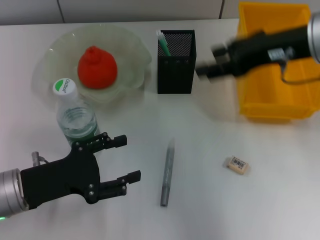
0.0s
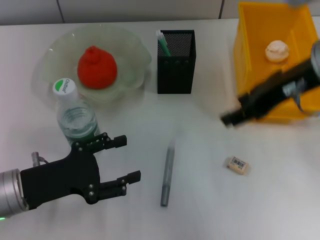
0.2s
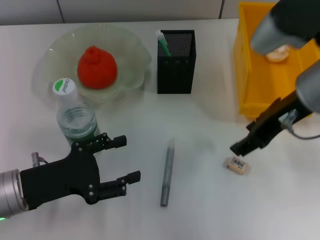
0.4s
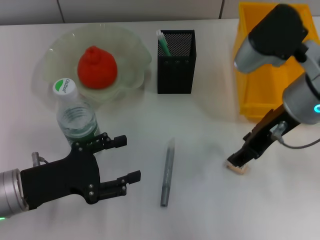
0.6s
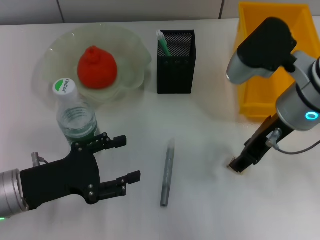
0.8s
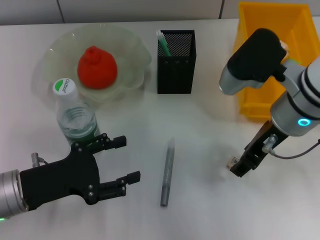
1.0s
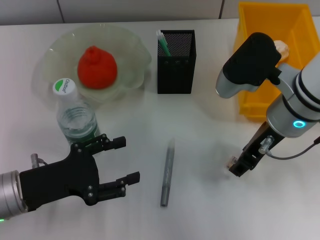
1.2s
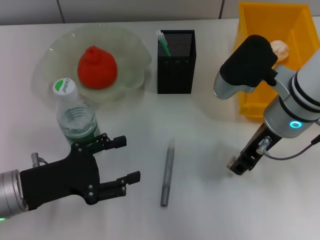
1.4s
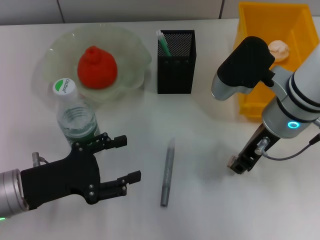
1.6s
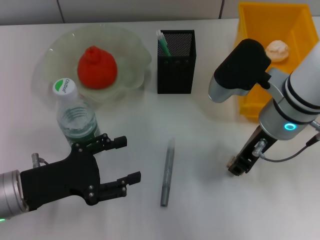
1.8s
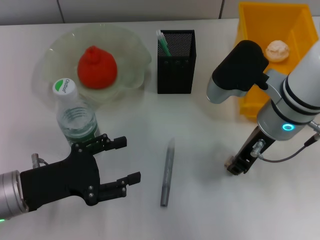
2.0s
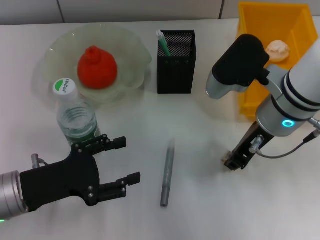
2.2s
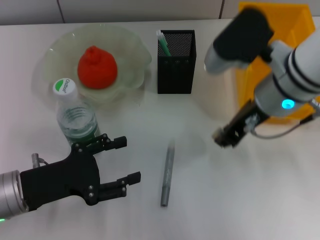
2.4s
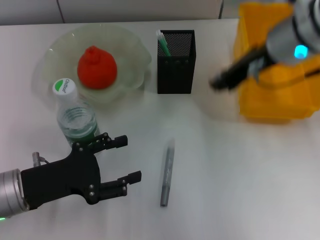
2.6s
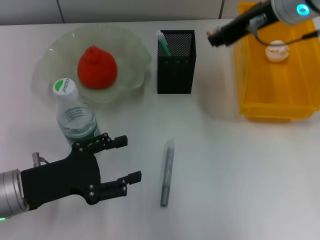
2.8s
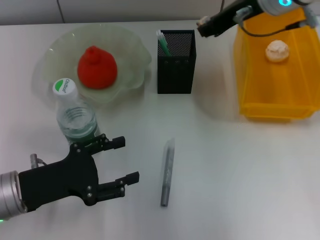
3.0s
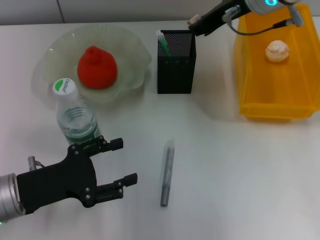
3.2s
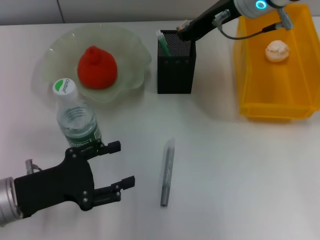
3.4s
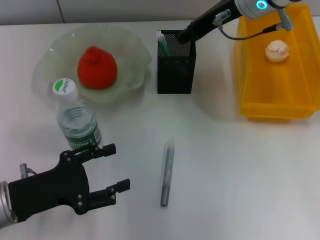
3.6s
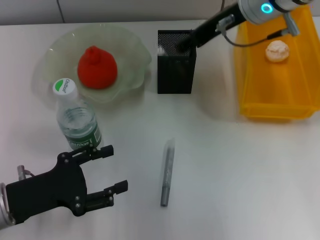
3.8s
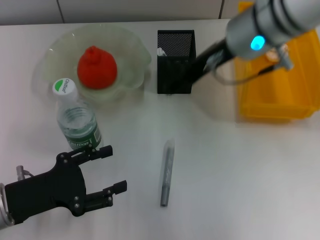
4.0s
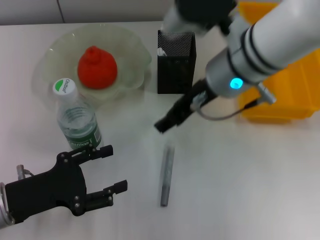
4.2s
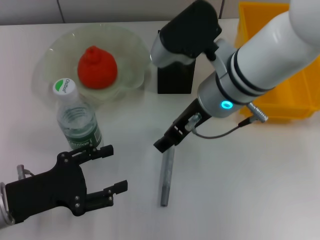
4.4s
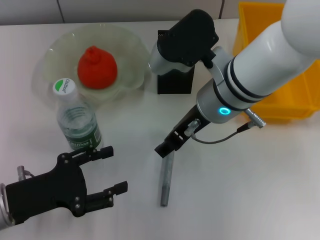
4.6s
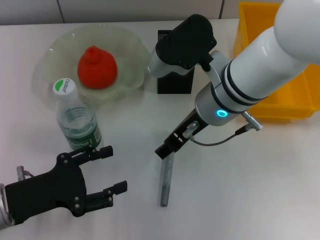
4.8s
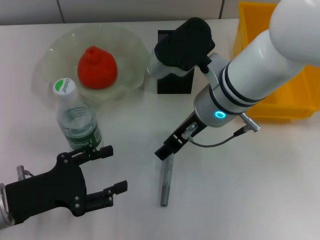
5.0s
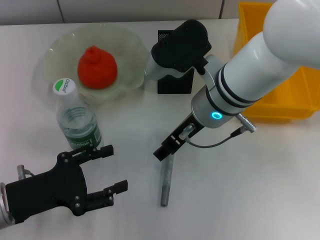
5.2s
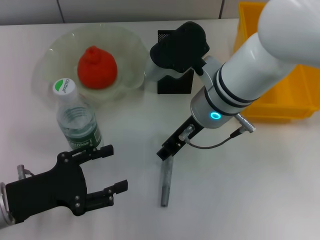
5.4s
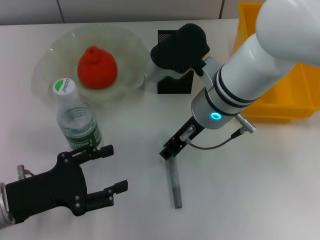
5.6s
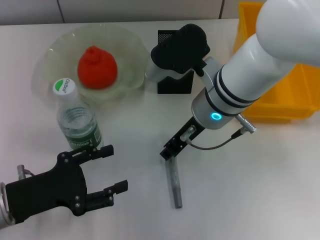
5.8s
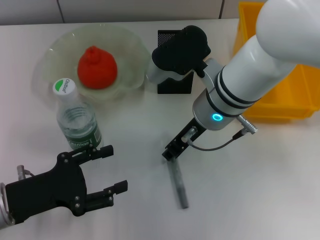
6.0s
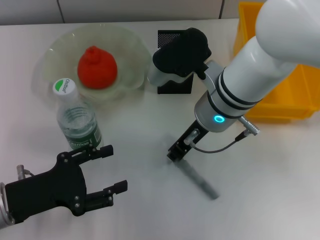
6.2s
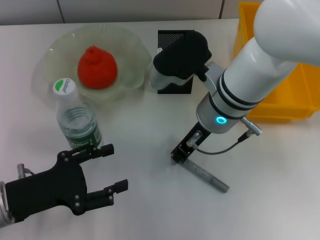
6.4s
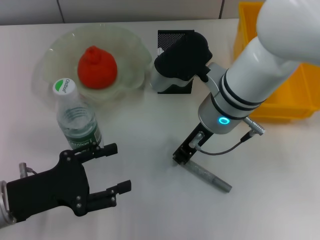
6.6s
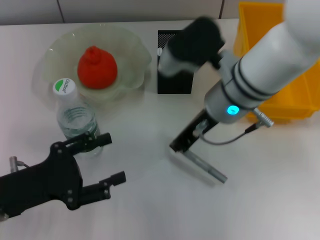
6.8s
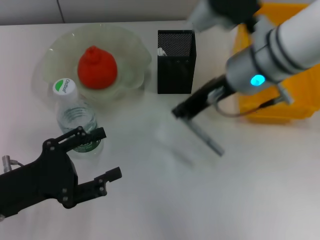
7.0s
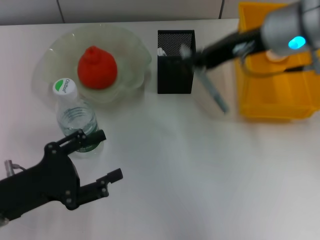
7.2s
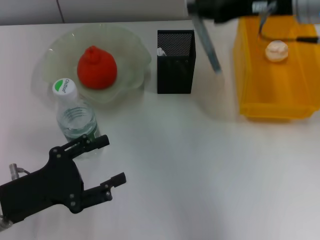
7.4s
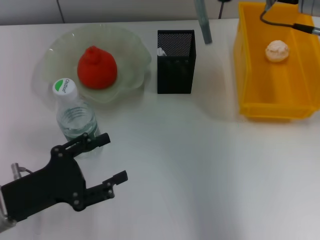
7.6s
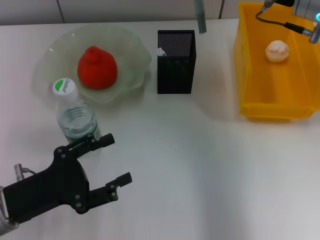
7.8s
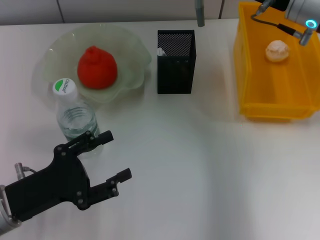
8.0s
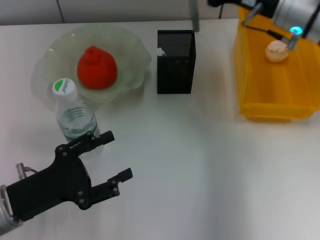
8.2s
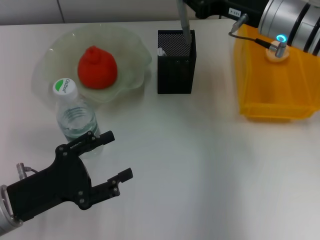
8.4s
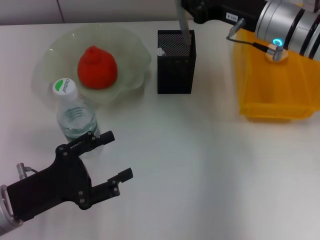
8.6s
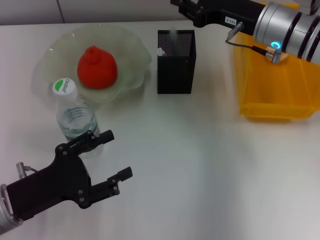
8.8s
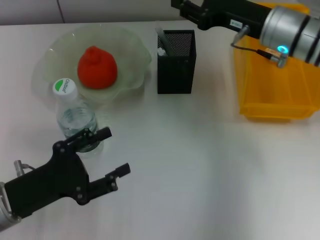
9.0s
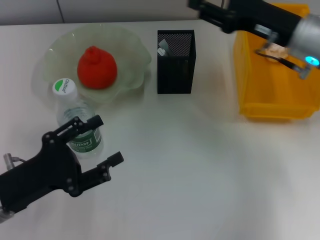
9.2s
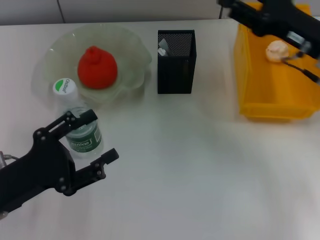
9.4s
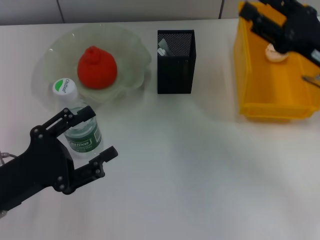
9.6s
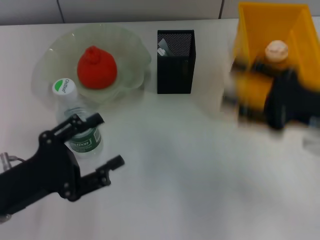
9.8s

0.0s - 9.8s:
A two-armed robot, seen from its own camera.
Step, 0.0s - 1.6s: Grab the eraser with the right hand.
Step, 2.0s - 3.6s: Put the eraser into the pen holder with the right hand.
Step, 4.0s - 6.2s: Grab the gray glue with the right hand.
Step, 6.6s - 9.2s: Place the gray glue into the pen holder with the right hand.
0.0s - 1.4s: The right gripper travels downward by roughly 10 cm.
1.4s - 2.8s: The right gripper is displaced upward and forward by some 10 cm, and closes.
2.8s - 4.2s: The right gripper shifts some 10 cm to the left and downward, and opens.
4.2s - 5.6s: The right gripper travels downward by approximately 5 cm, and closes.
5.6s - 7.0s: The right gripper travels upward by some 5 cm, and closes its fingers.
7.0s - 8.4s: The right gripper goes approximately 10 cm to the right and forward, and goes upward and returns, about 5 cm each way.
8.4s - 9.8s: The right gripper heads backward and to the right, covering roughly 15 cm, and opens up.

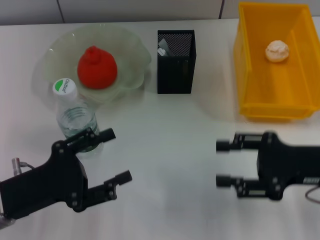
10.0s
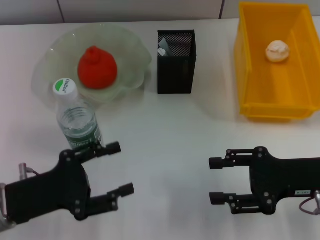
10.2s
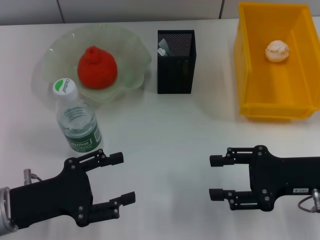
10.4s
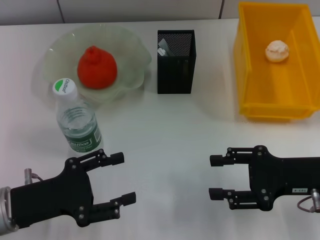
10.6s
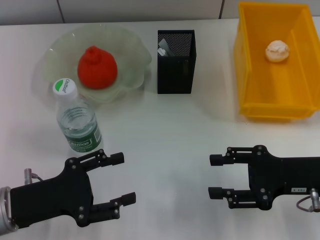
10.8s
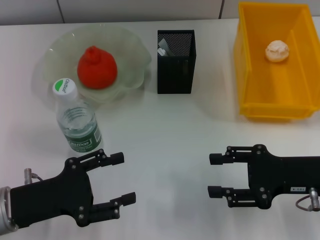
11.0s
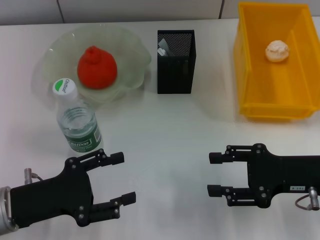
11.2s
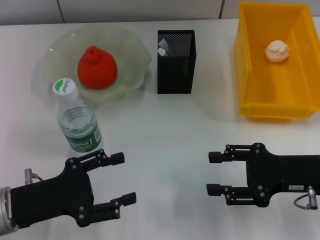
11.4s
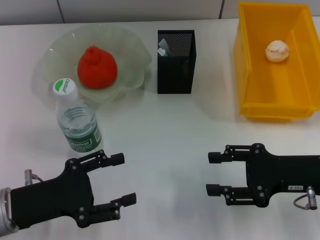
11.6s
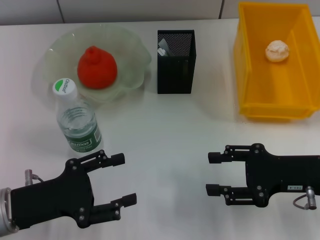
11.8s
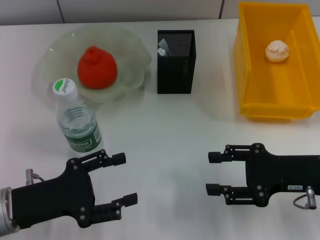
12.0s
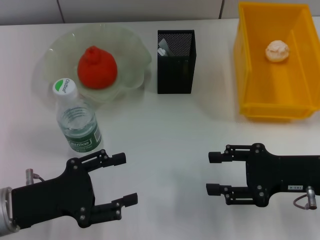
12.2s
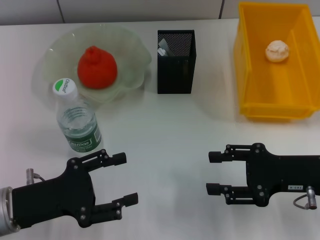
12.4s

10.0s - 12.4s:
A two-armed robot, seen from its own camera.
10.0s - 11.2s: The grippers make only small movements.
11.2s - 12.4s: Neither gripper changes place.

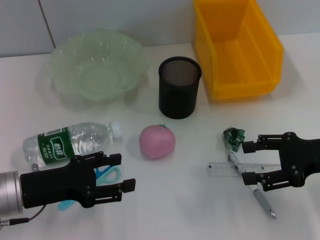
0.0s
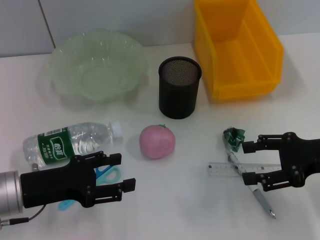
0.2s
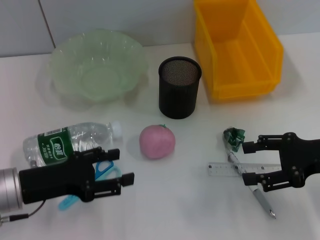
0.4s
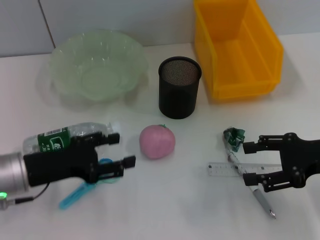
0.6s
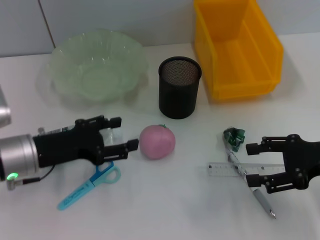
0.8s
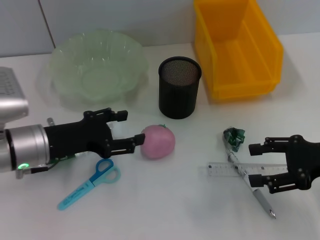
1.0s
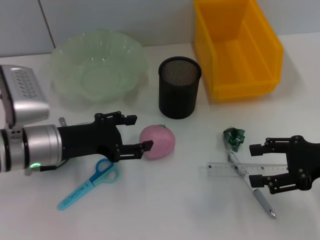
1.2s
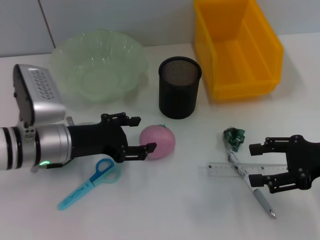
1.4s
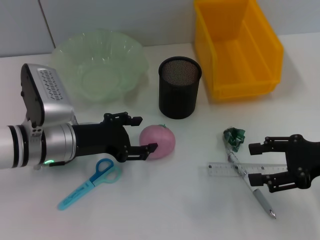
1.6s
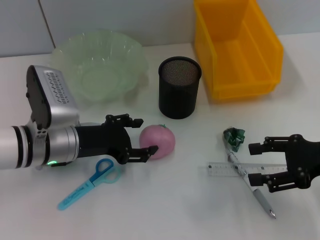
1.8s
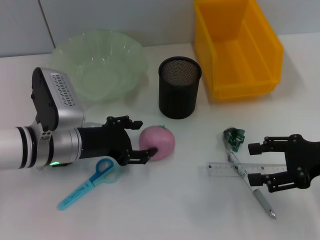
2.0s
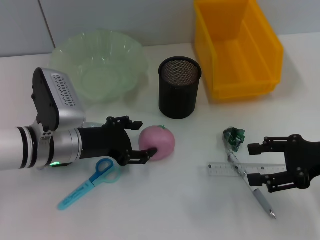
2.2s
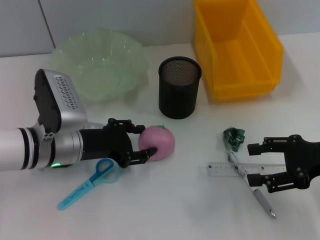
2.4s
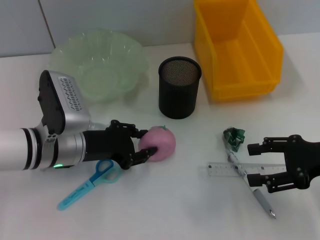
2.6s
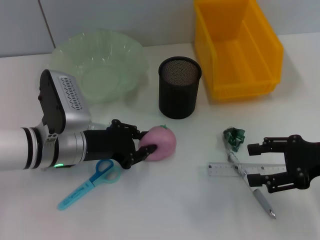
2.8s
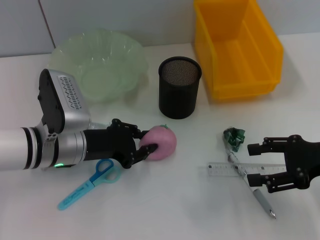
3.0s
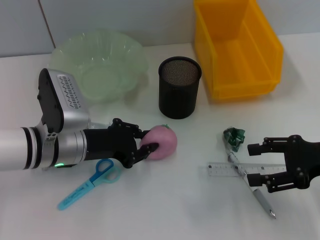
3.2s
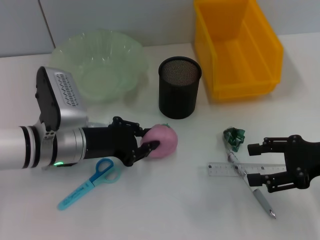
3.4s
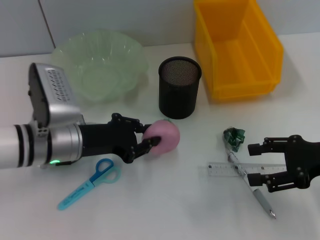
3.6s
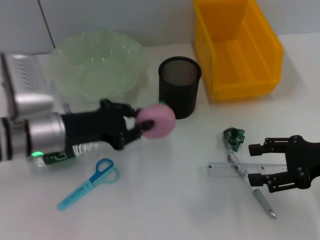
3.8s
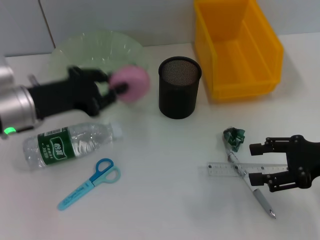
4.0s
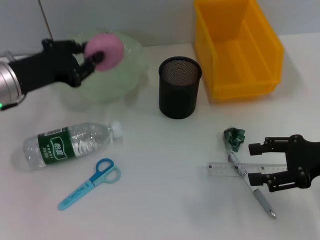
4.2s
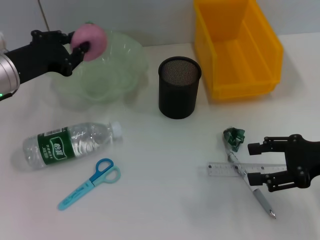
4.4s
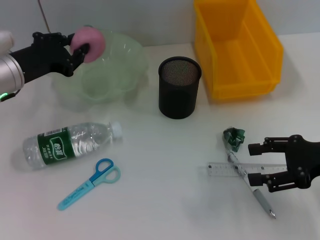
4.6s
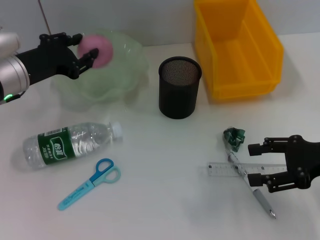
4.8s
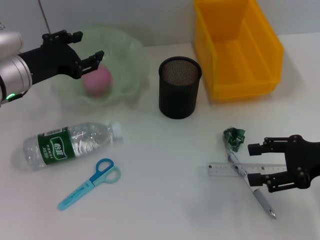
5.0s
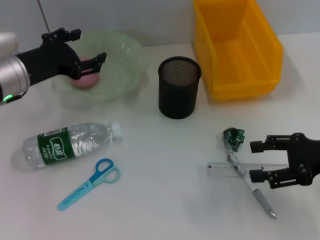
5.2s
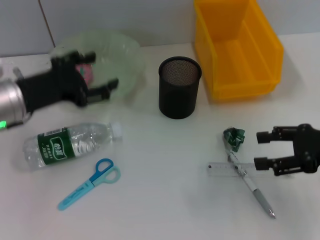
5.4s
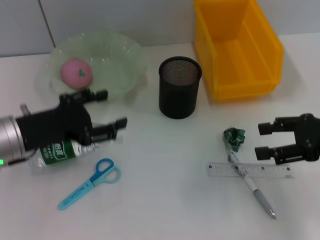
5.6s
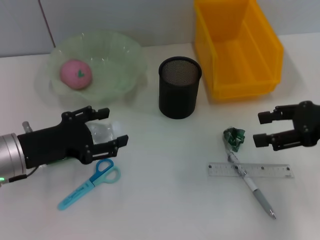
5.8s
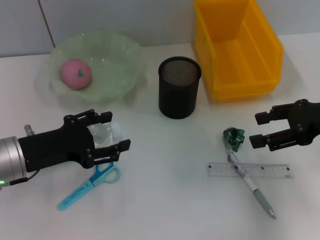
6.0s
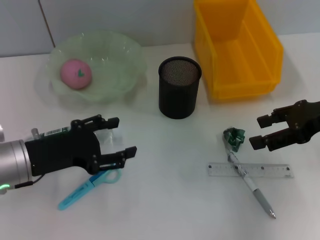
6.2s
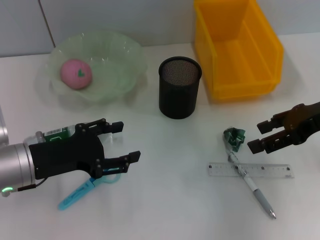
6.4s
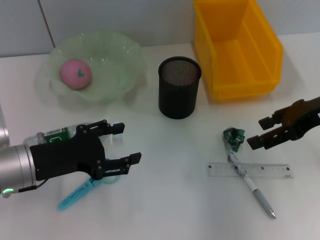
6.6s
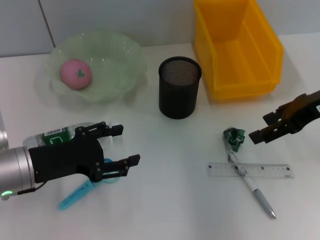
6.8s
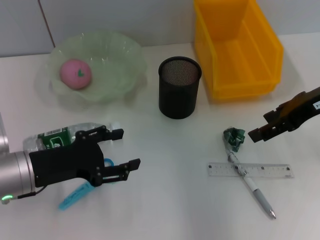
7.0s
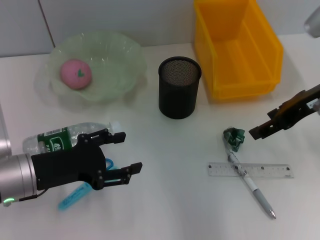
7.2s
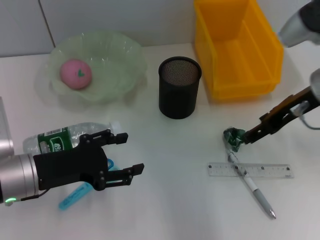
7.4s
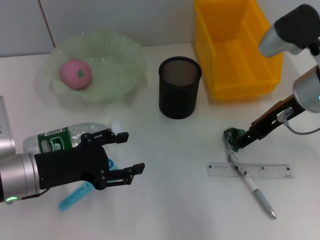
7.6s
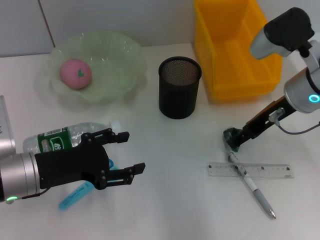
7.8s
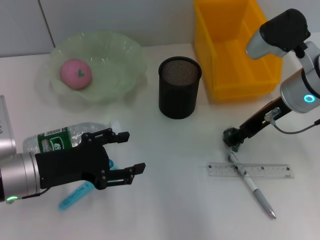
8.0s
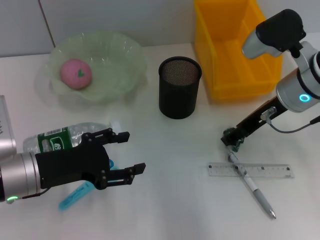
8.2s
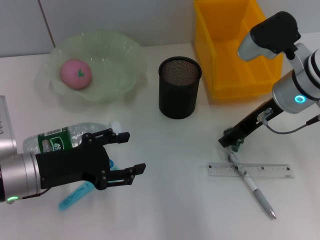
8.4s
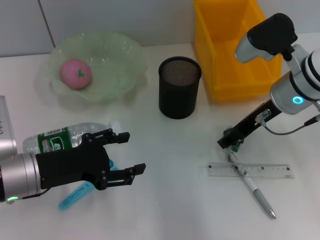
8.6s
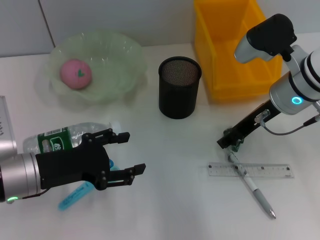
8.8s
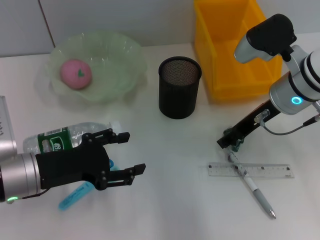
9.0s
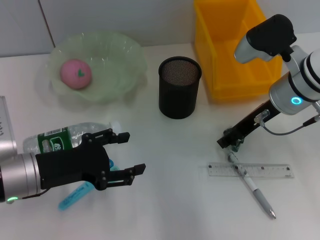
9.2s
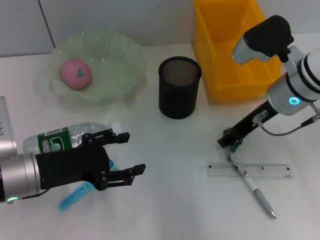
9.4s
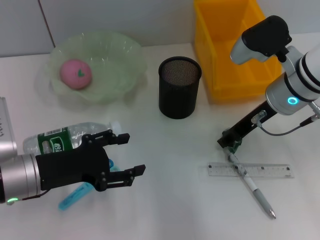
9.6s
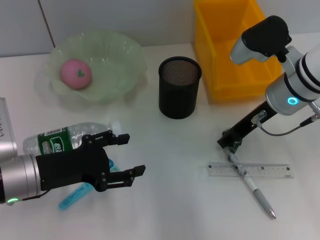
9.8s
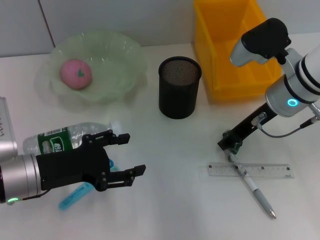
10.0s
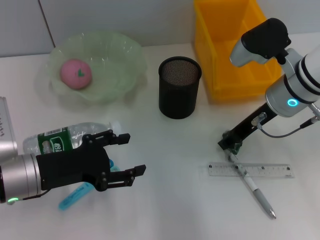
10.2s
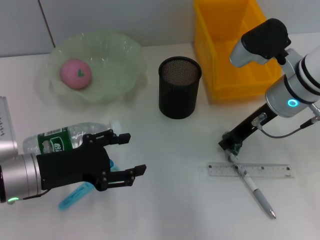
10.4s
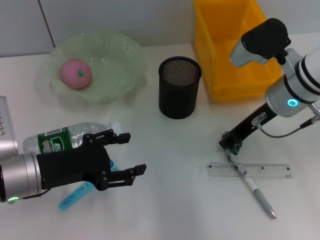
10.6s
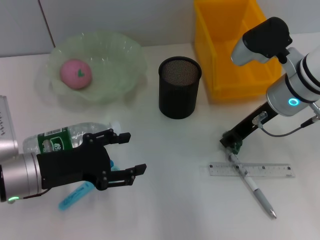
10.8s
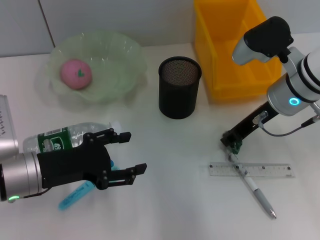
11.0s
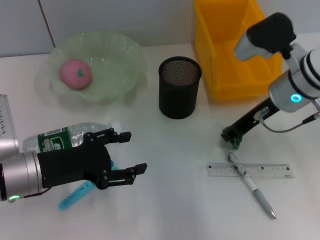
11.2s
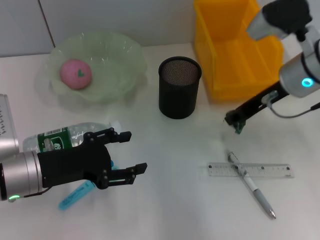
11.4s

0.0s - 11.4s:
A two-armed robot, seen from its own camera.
Step, 0.0s - 2.2s: Grab the peach with the left hand.
Step, 2.6s - 5.2s: Place the peach into the fruit bowl with the left hand.
Step, 5.6s - 10.2s: Grab the plastic with the right hand.
0.0s - 1.4s: The left gripper shifts roughly 10 cm forward and to the right.
1.4s - 2.8s: The left gripper closes.
2.8s - 4.2s: The left gripper goes roughly 10 cm upward and to the left.
4.2s - 5.6s: The left gripper moves backward, roughly 5 cm, and opens.
5.6s - 7.2s: The right gripper moves to the left, forward and upward, about 10 cm.
7.2s - 8.6s: The right gripper is displaced to the left by roughly 5 cm.
8.6s - 10.0s: Both grippers stay put.
10.0s - 11.4s: There are only small adjustments of the grippers.
